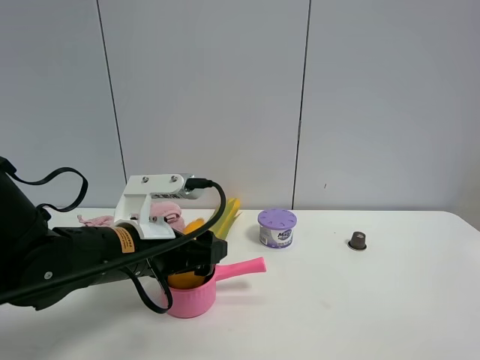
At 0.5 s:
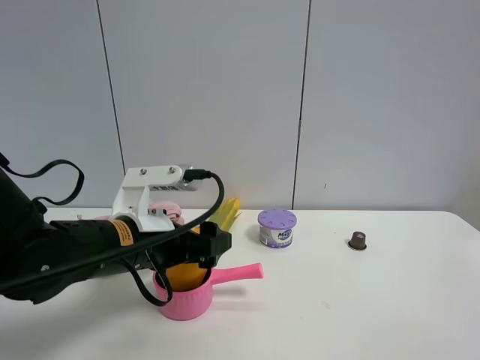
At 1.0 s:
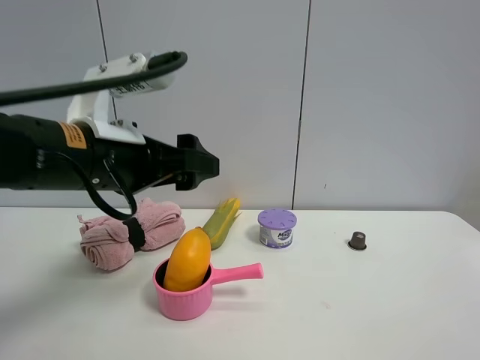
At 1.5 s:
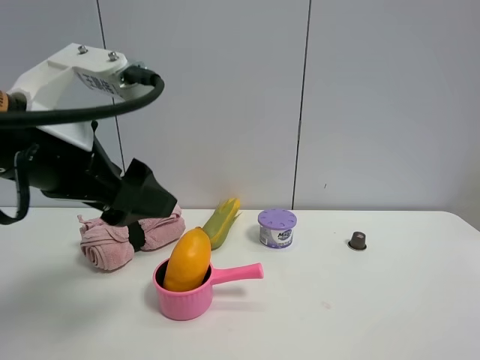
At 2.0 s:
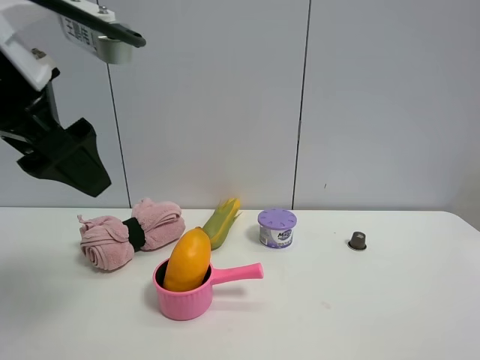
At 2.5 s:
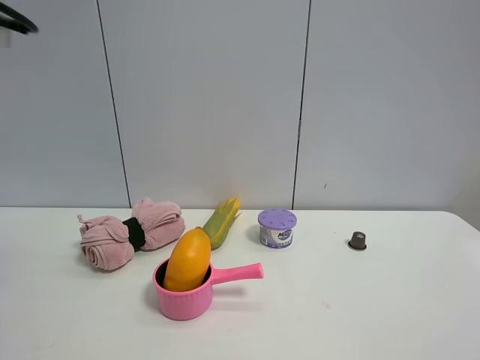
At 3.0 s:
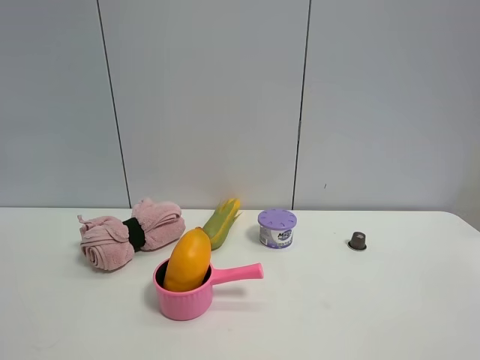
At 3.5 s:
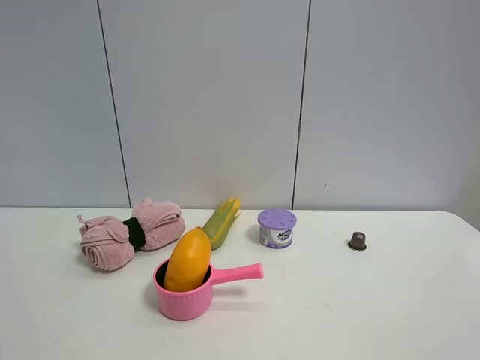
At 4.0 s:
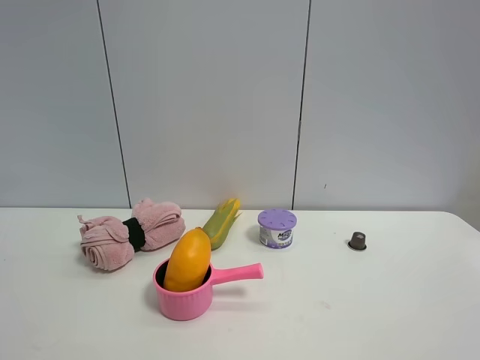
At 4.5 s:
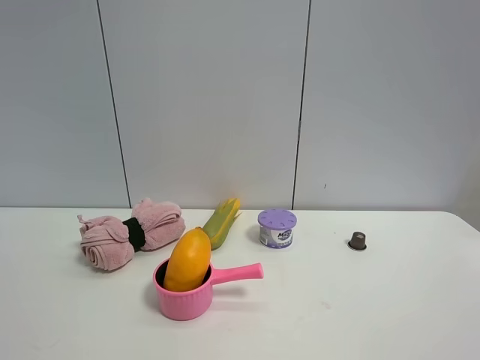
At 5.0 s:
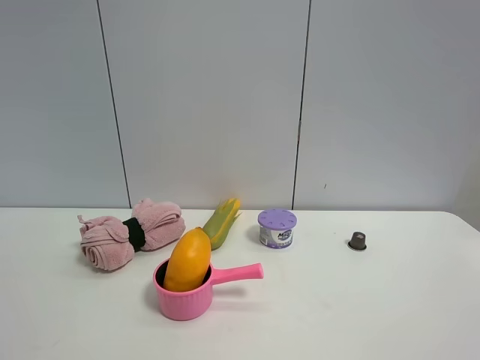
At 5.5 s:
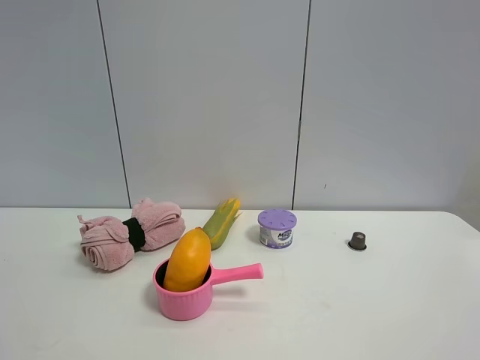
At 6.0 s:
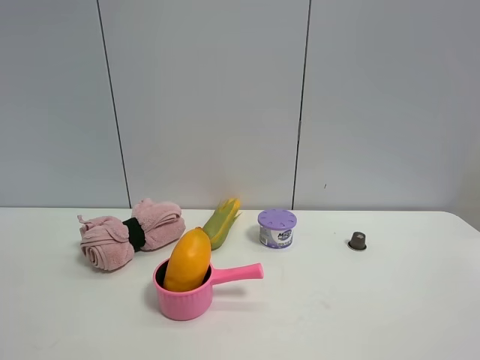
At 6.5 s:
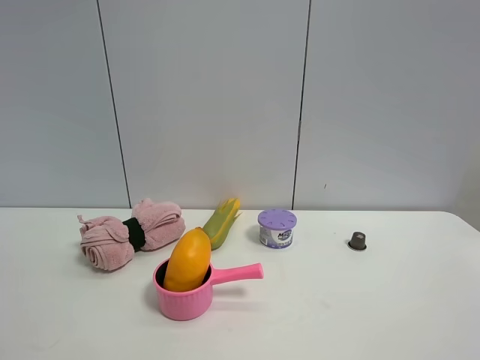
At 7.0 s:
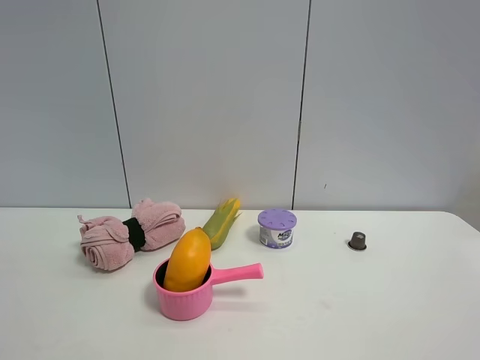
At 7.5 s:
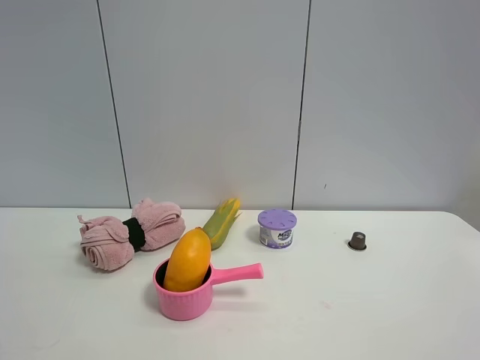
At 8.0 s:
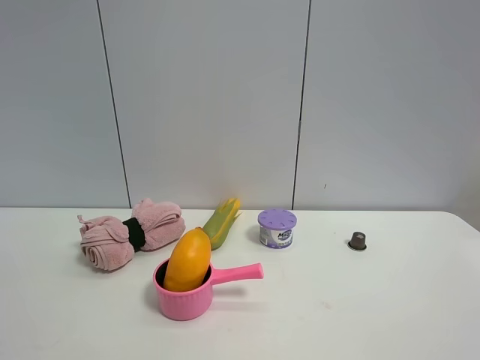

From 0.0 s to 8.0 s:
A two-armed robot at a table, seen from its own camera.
Task of the whole recording: the gripper move the object.
From 0.0 s to 2.0 s: The left gripper travels upward by roughly 20 cm.
From 2.0 s to 4.0 s: The left gripper is displaced backward and to the left by approximately 25 cm.
From 6.0 s to 8.0 s: Both grippers stay put.

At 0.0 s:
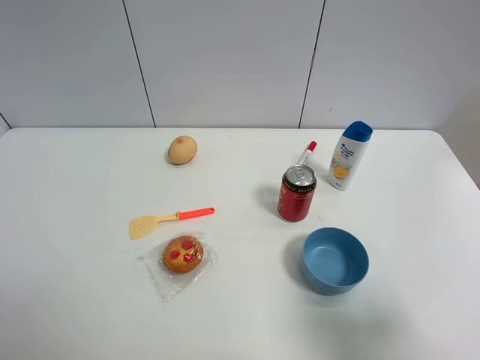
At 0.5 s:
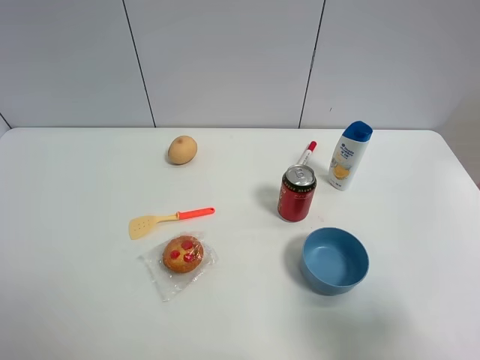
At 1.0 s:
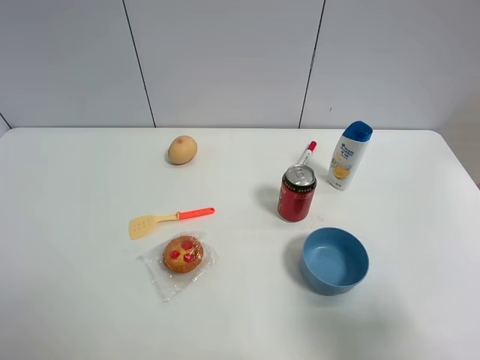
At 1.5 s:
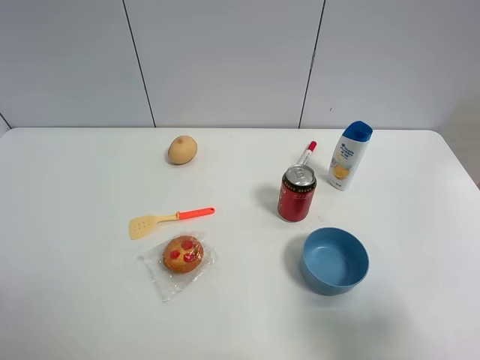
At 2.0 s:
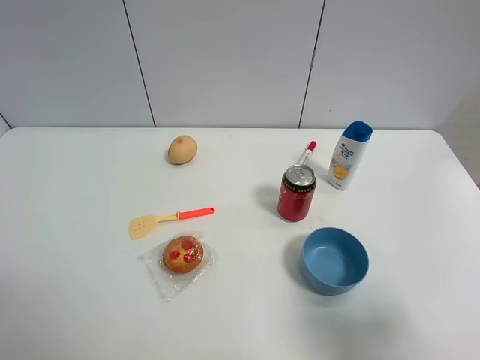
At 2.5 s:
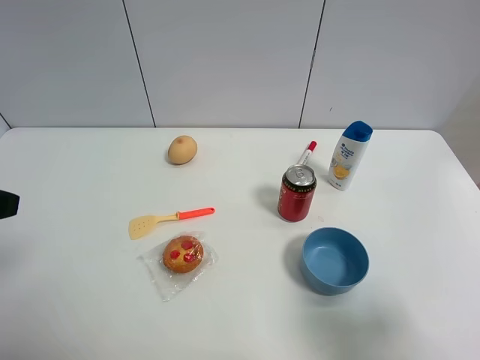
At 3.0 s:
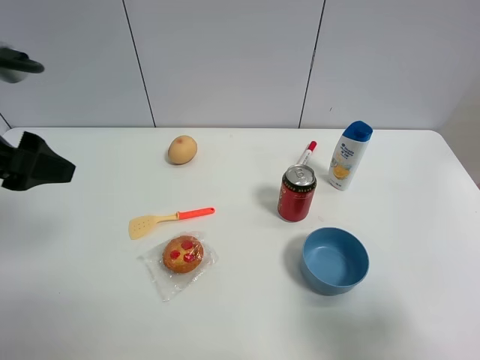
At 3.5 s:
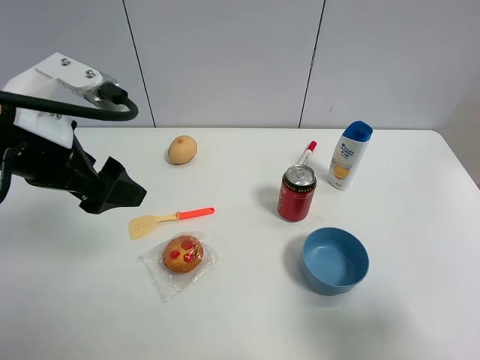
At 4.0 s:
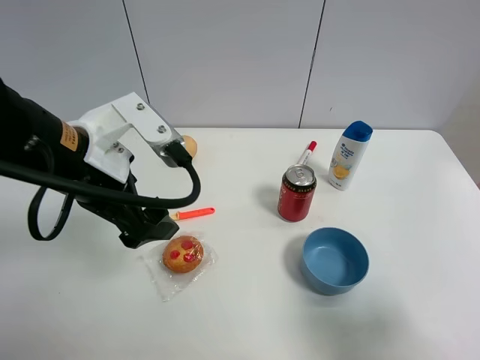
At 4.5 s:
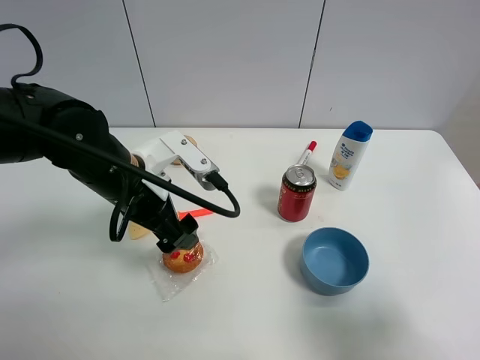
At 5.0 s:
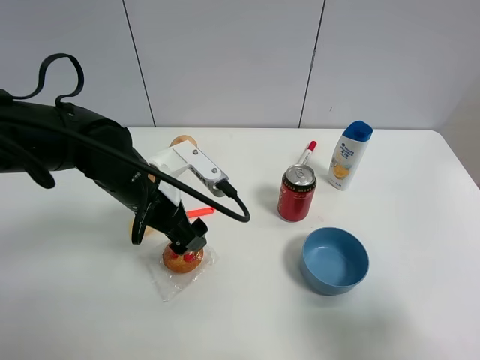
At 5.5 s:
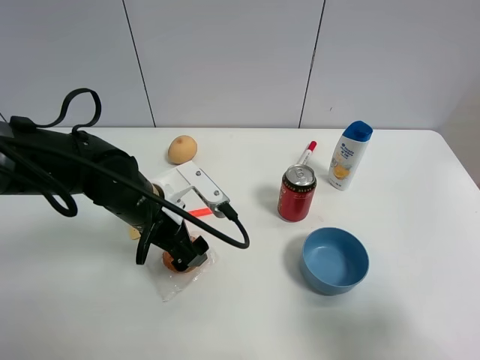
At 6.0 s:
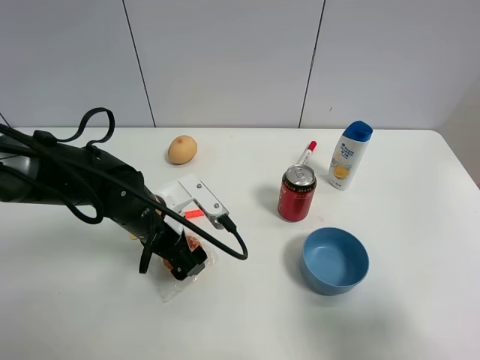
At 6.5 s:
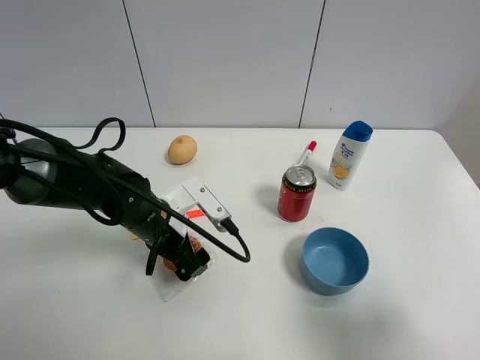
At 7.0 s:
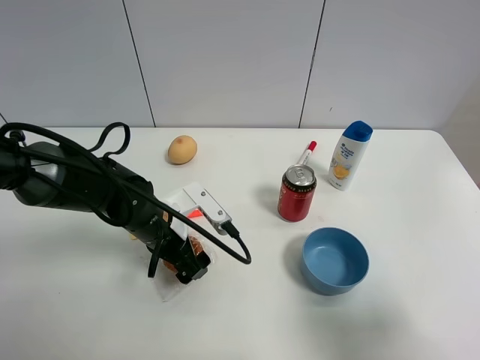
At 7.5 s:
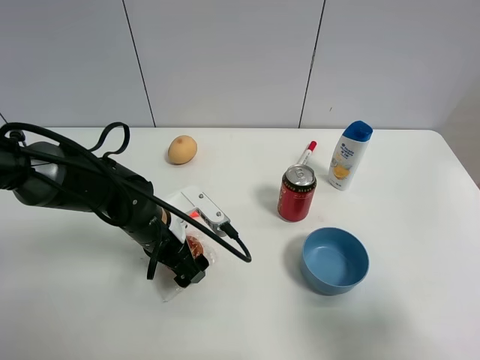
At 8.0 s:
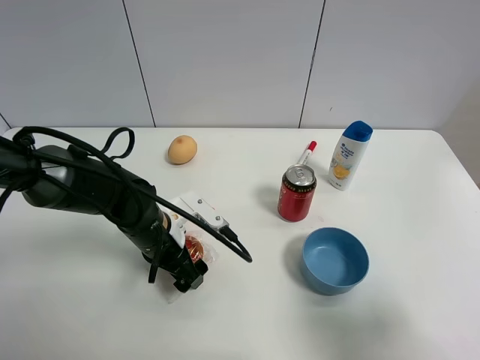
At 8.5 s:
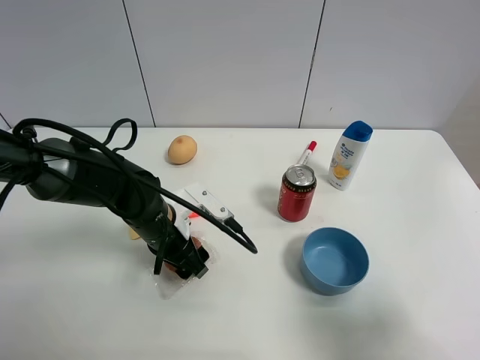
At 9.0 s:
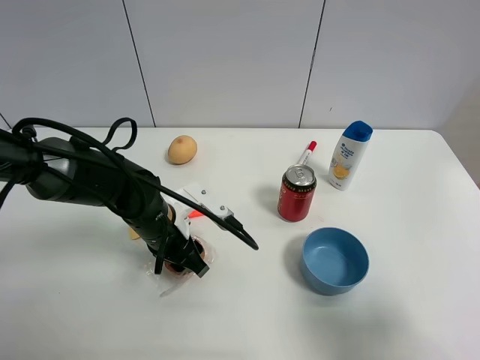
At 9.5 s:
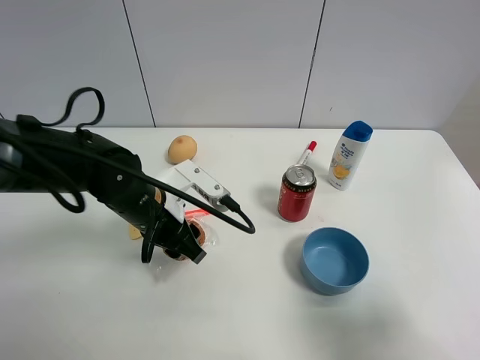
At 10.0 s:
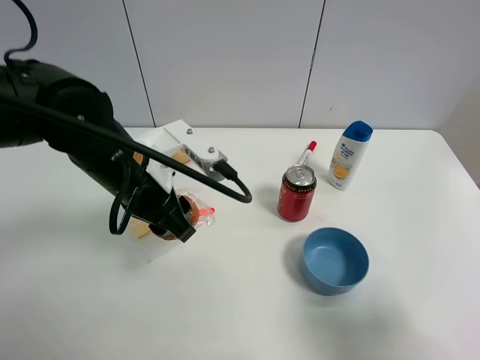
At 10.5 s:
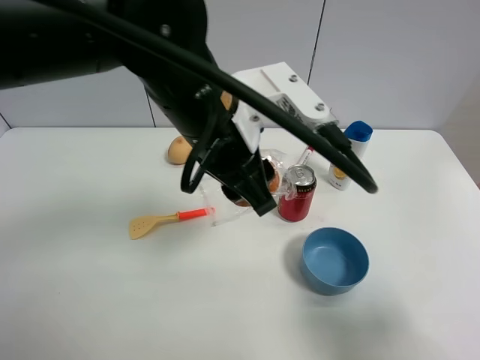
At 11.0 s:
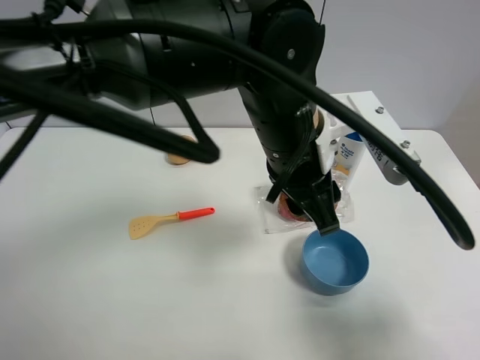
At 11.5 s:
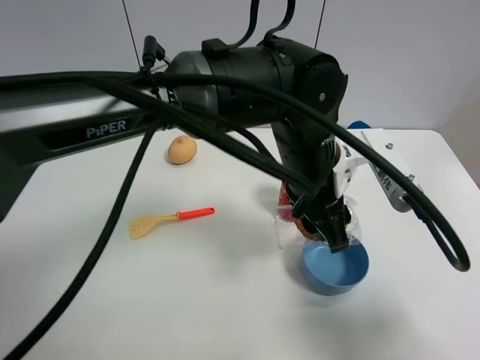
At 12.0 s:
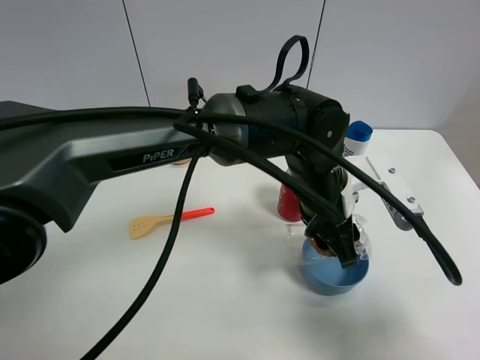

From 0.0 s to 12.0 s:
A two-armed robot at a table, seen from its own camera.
Task of the whole recording: the gripper move the object.
Step, from 0.0 s to 9.0 s: Grasp the egg tart with the left gripper.
From 2.0 s to 4.0 s: The left gripper shifts approximately 20 cm forward and to the right.
From 4.0 s to 6.0 s: The left gripper is displaced downward by roughly 15 cm.
From 6.0 s to 8.0 s: The grippers make only small movements.
From 8.0 s to 10.0 s: The left gripper is displaced upward by roughly 15 cm, and closes its fingers.
From 10.0 s to 12.0 s: The left gripper moves to the right, about 20 cm.

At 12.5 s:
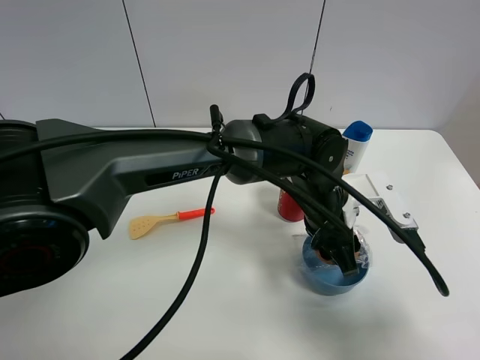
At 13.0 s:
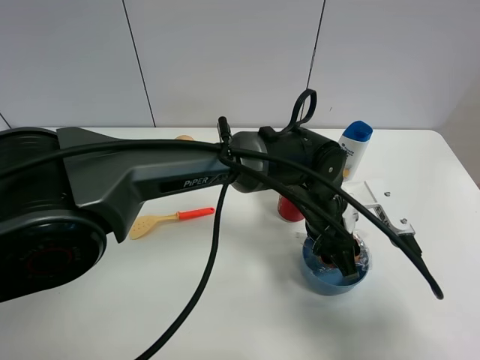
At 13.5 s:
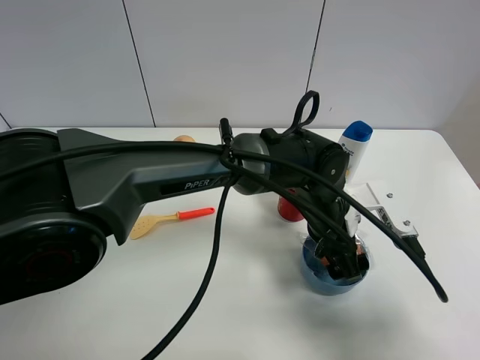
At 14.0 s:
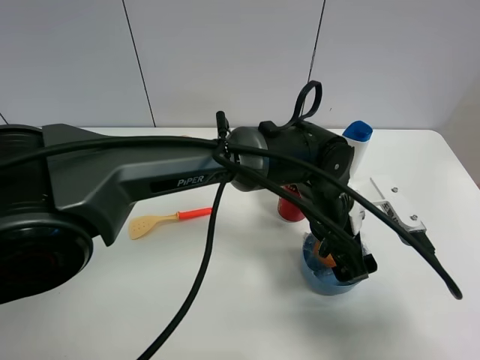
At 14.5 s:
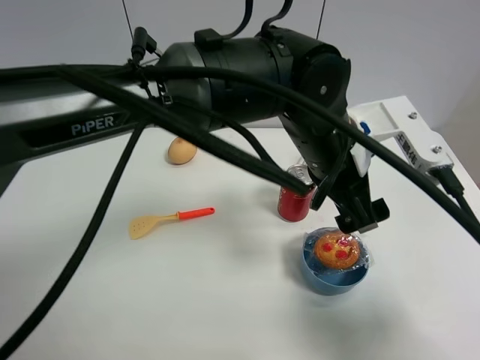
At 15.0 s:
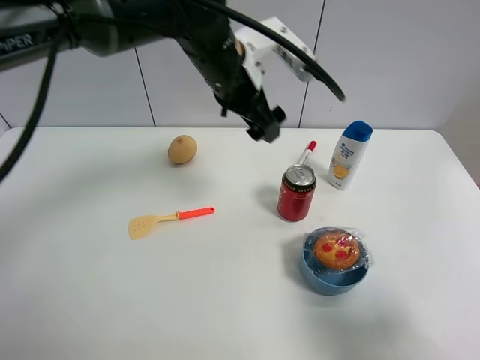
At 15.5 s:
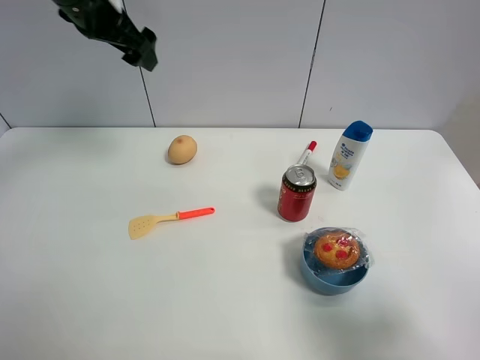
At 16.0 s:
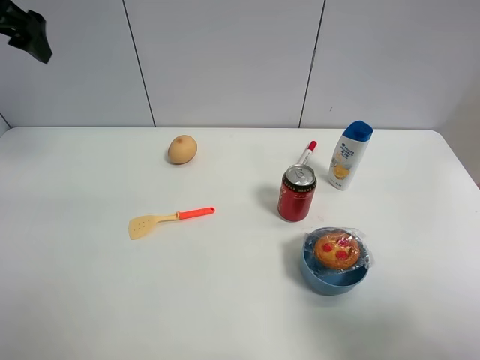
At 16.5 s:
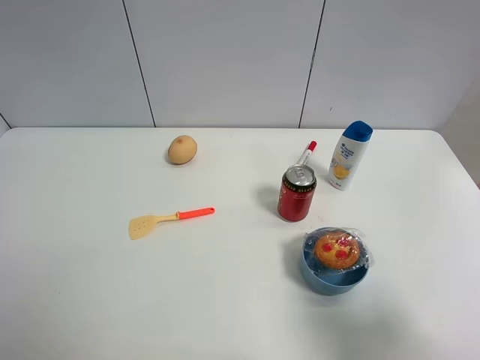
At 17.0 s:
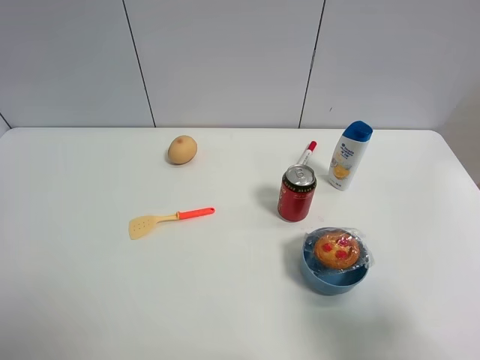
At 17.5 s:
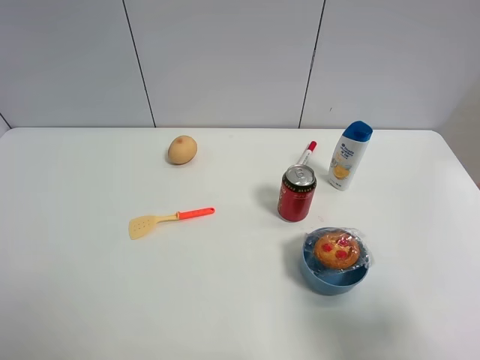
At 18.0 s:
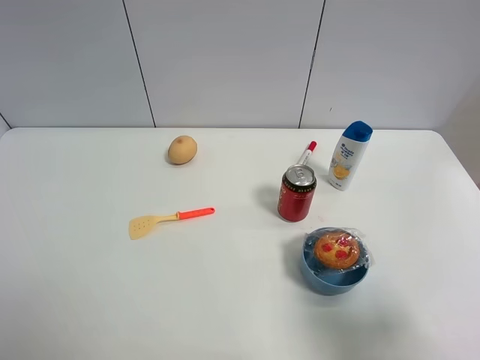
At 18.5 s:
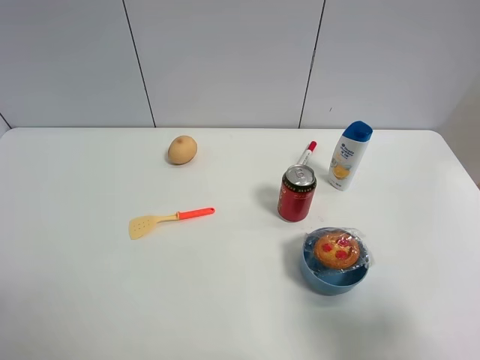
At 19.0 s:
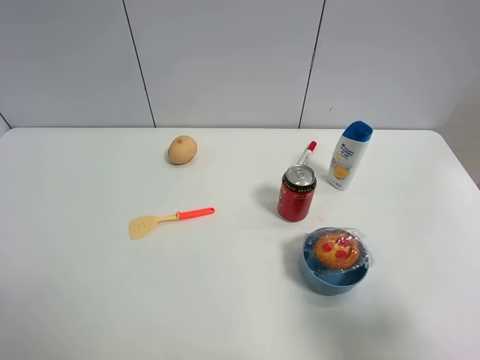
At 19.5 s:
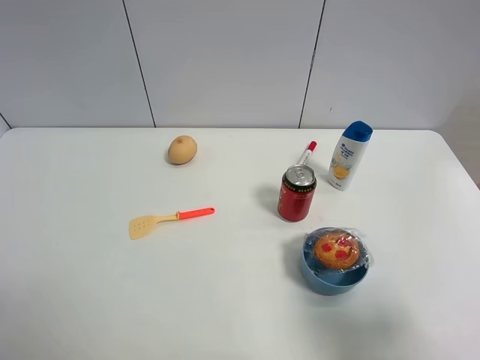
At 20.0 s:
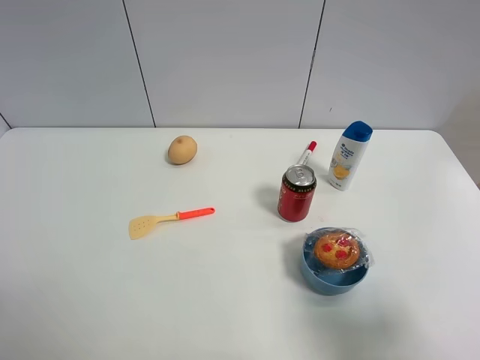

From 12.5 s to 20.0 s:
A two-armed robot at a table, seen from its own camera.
Task of the whole recording: the gripper move the object.
From 12.5 s to 14.5 s: The left gripper travels upward by roughly 10 cm, and opens up.
From 14.5 s to 16.5 s: The left gripper is displaced to the left and upward by approximately 50 cm.
